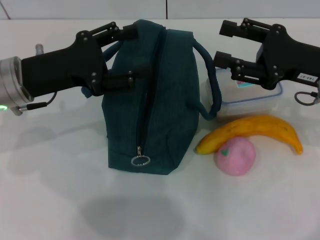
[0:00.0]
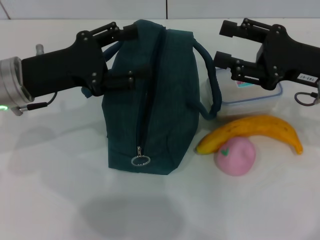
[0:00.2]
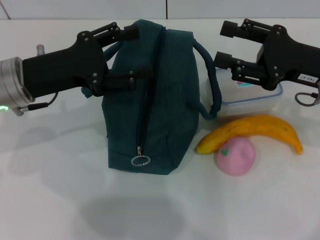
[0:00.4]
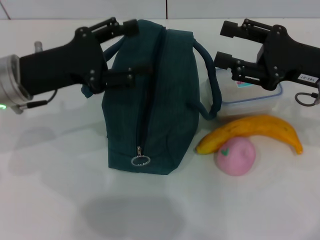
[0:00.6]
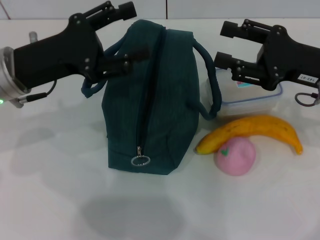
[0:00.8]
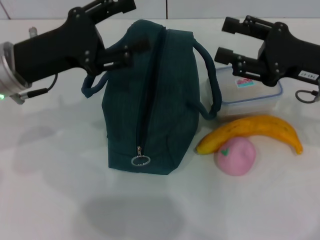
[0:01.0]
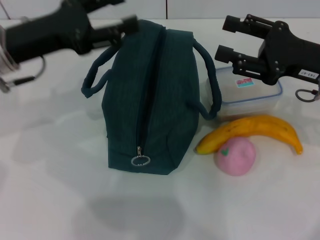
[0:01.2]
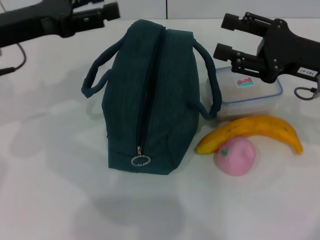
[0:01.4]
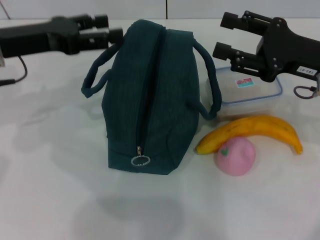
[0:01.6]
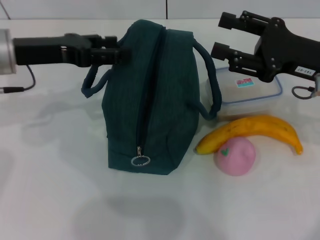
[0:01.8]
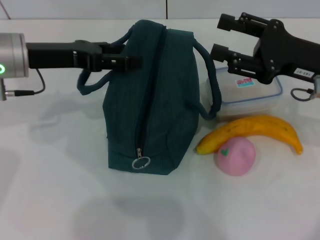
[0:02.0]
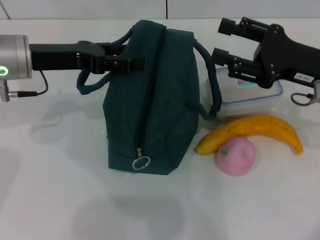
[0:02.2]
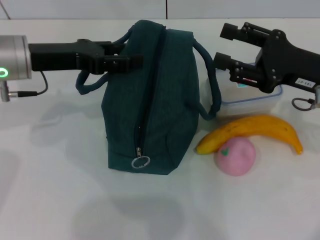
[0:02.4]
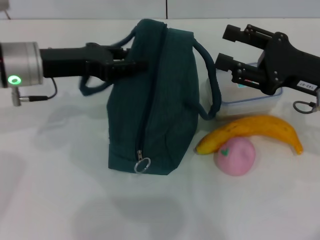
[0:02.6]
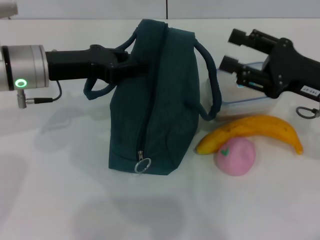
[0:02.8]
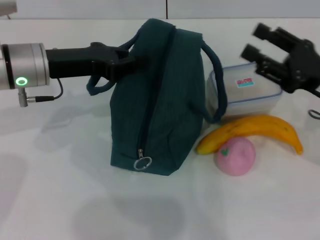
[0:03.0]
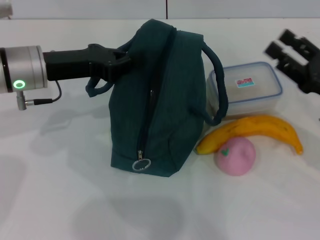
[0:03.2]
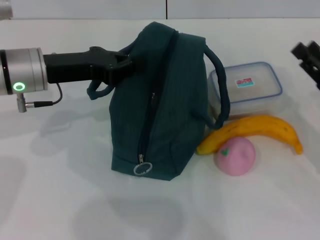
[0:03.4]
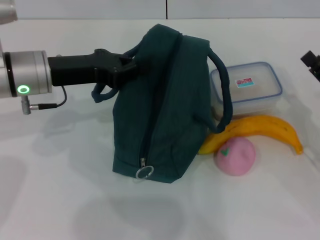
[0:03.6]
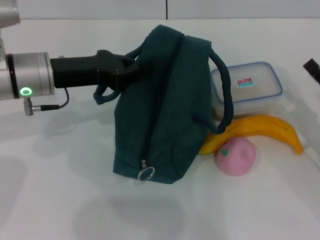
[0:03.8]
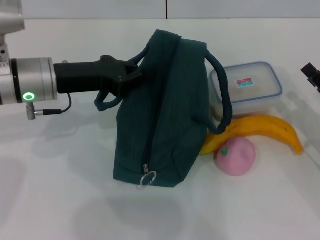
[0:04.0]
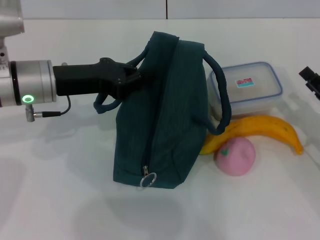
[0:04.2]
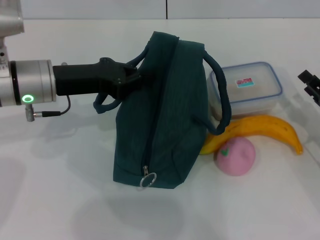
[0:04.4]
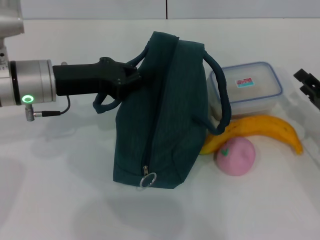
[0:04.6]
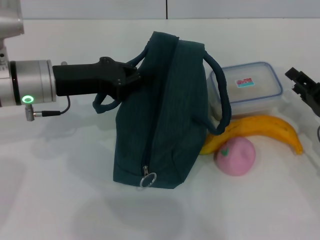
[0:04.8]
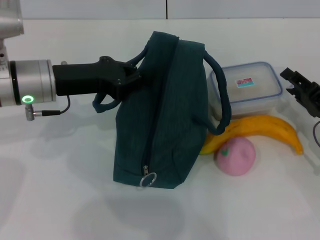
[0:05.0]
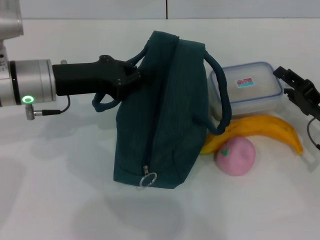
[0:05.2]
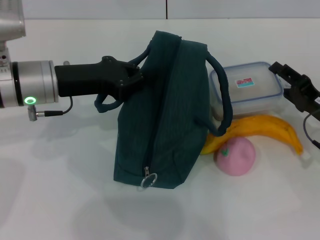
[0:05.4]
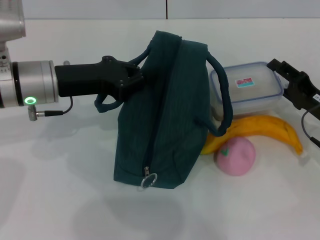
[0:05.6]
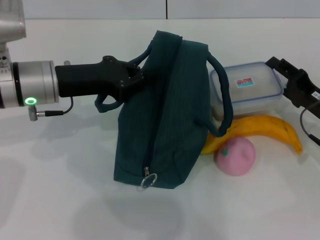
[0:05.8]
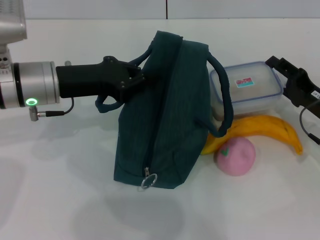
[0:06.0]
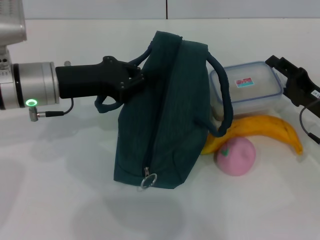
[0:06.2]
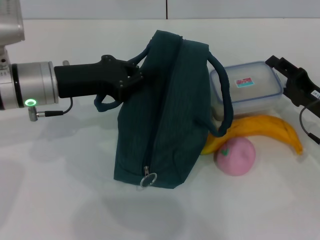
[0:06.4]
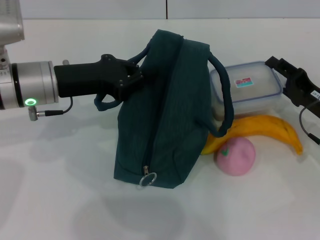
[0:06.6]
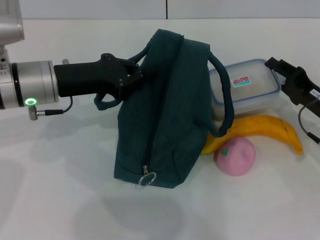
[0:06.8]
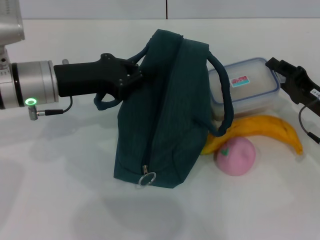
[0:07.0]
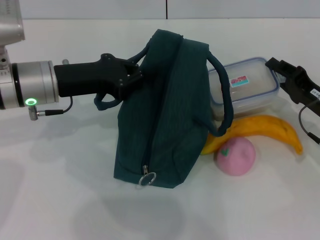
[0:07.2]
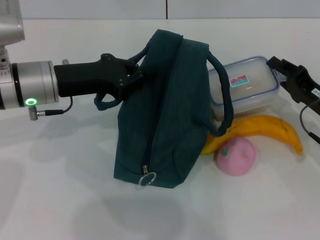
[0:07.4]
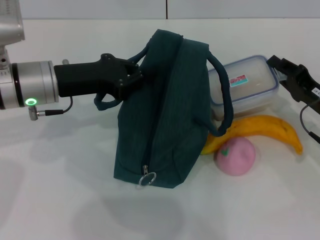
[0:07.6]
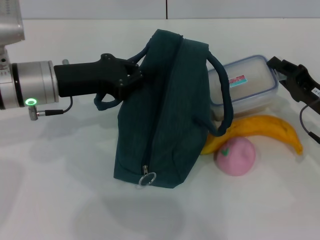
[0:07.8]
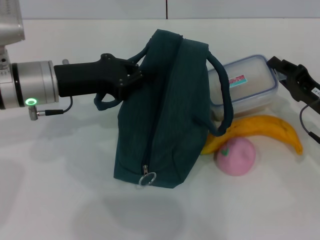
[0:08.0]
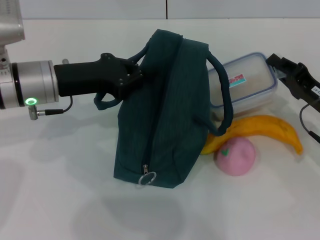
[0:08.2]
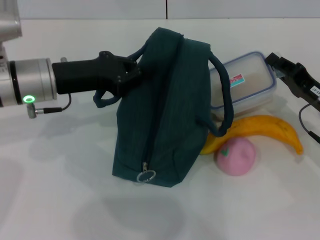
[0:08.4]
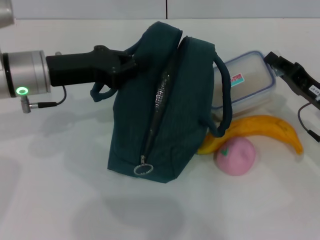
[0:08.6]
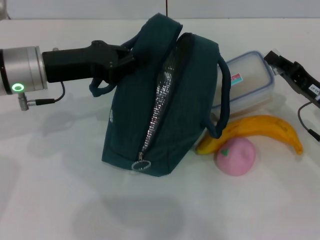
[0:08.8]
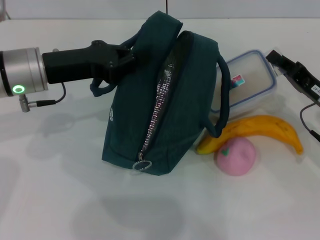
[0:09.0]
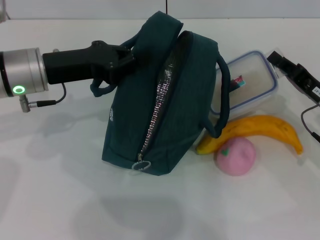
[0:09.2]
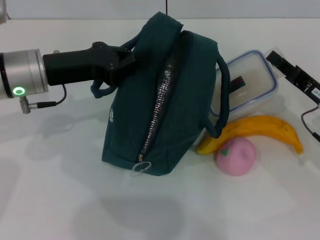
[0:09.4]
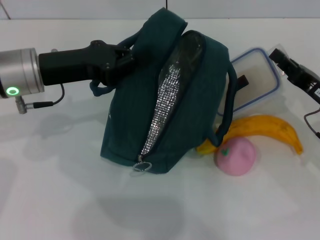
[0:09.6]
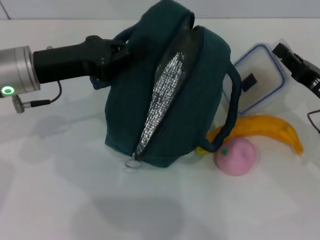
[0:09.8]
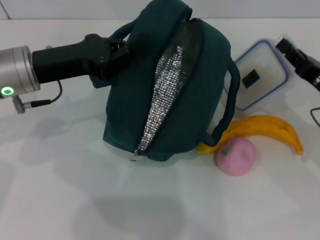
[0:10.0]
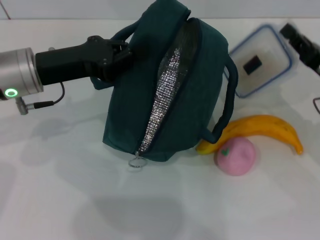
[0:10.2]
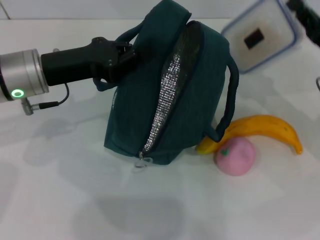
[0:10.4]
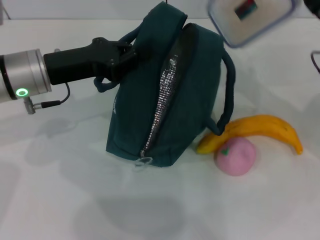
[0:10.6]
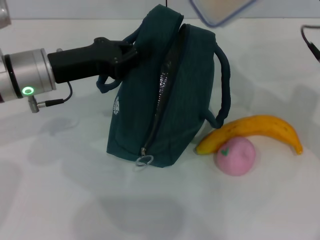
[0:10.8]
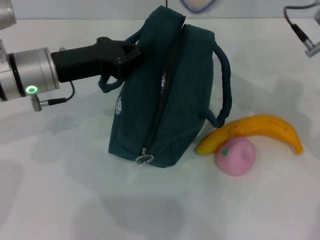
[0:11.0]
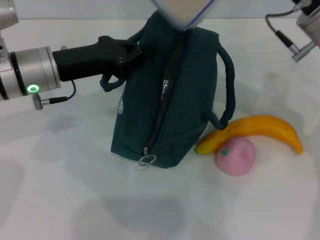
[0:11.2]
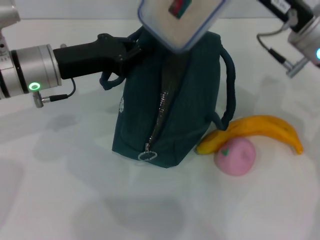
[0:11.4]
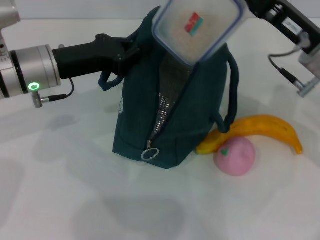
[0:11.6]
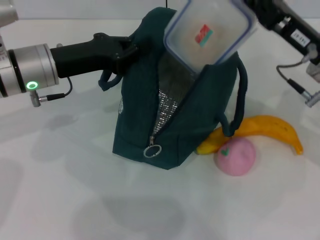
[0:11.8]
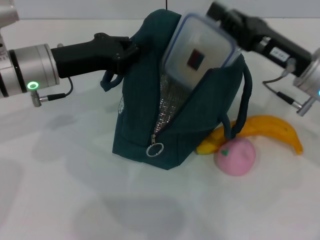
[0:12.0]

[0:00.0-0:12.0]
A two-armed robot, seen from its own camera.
Step, 0:00.0 to 0:03.4: Hold the lunch bag with your left hand.
Step, 0:03.6 to 0:07.4: Pick up the lunch box with your right hand.
0:00.0 to 0:01.6: The left gripper moves about 5 cm.
0:01.6 to 0:03.0: The left gripper moves roughly 5 cm, and closes up; the right gripper changes place by about 5 cm.
0:03.0 to 0:04.4: The right gripper goes roughly 10 cm downward. The left gripper closes its fingers.
0:04.4 to 0:06.0: The right gripper moves approximately 5 cm.
0:06.0 to 0:07.6: The right gripper closes its fingers.
0:07.6 to 0:09.0: The grippers make only small movements.
0:09.0 to 0:10.4: The right gripper heads upward, covering about 5 cm.
0:10.4 to 0:12.0: The right gripper moves to the left, approximately 5 cm.

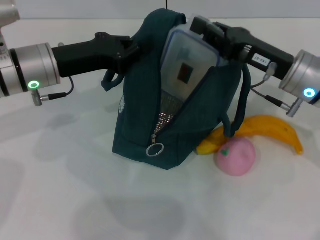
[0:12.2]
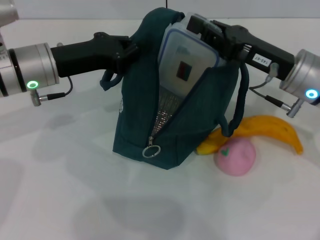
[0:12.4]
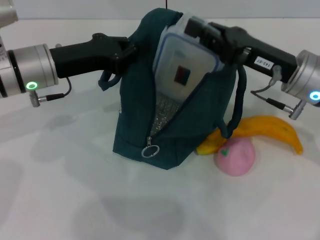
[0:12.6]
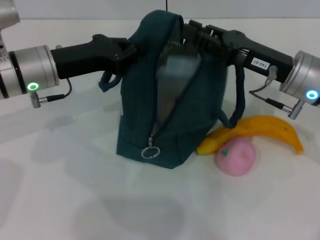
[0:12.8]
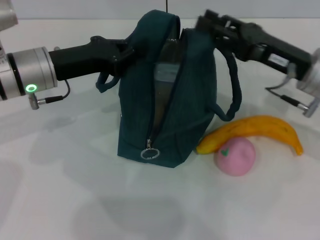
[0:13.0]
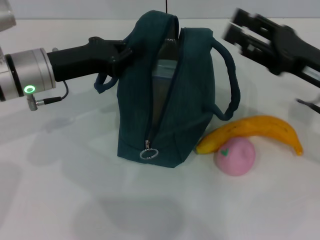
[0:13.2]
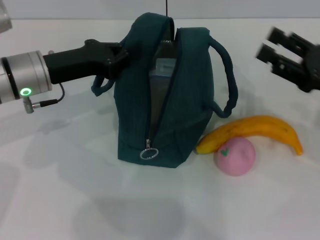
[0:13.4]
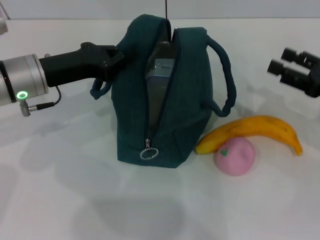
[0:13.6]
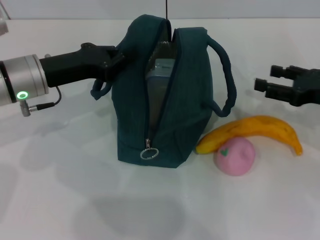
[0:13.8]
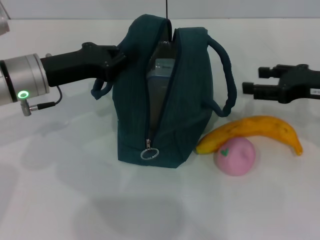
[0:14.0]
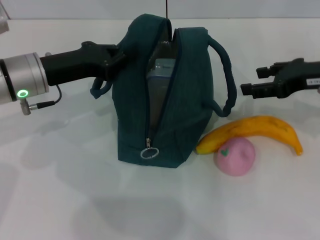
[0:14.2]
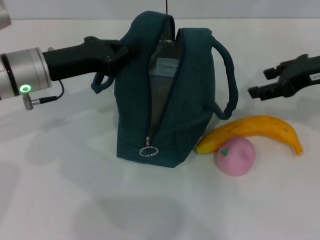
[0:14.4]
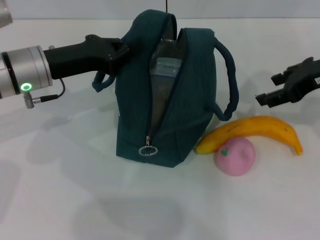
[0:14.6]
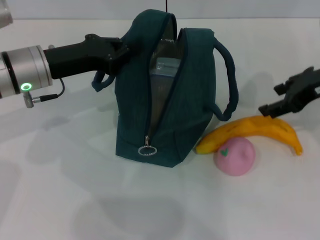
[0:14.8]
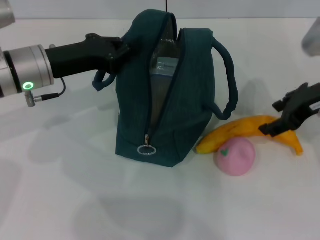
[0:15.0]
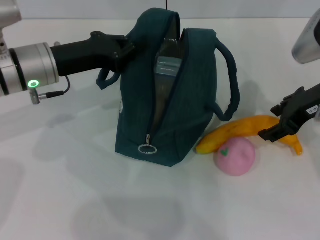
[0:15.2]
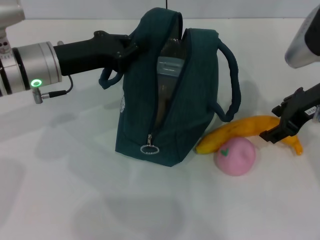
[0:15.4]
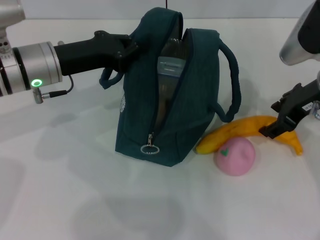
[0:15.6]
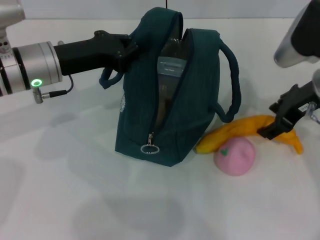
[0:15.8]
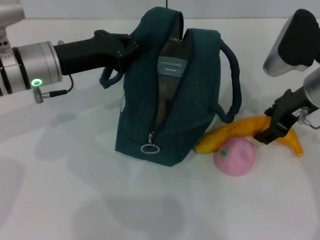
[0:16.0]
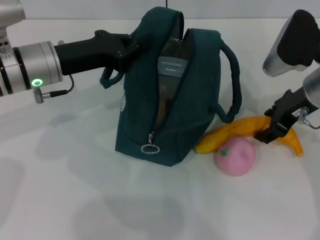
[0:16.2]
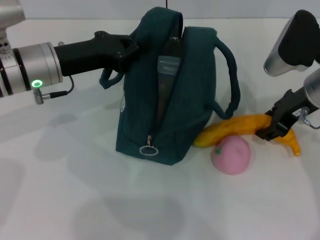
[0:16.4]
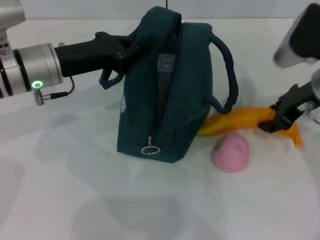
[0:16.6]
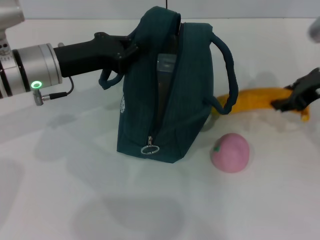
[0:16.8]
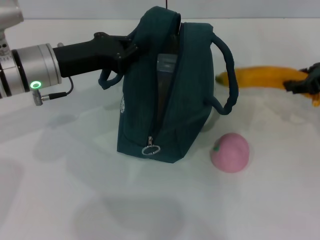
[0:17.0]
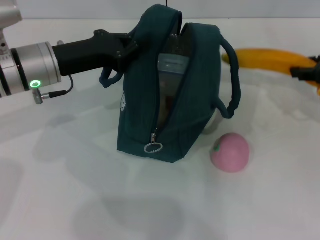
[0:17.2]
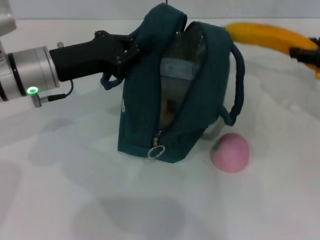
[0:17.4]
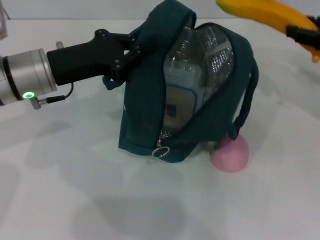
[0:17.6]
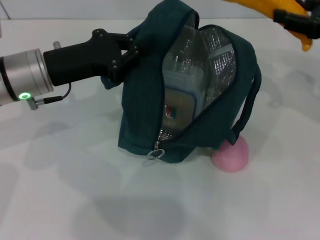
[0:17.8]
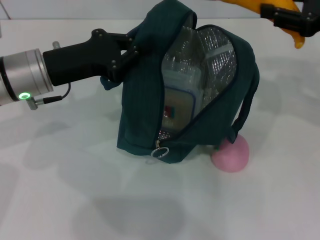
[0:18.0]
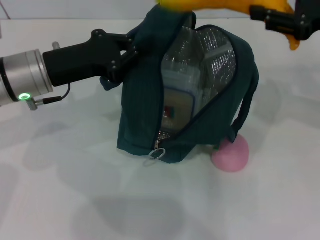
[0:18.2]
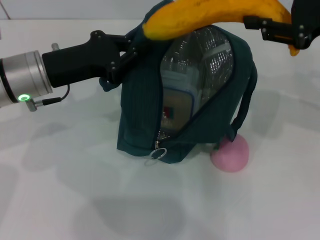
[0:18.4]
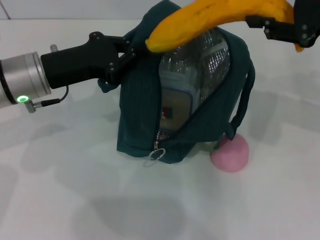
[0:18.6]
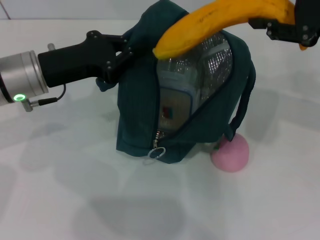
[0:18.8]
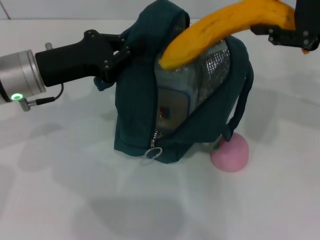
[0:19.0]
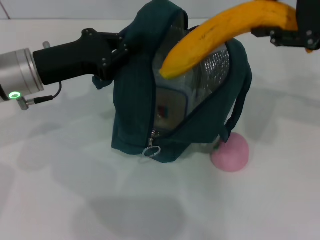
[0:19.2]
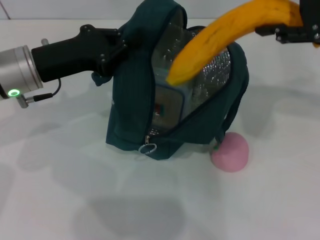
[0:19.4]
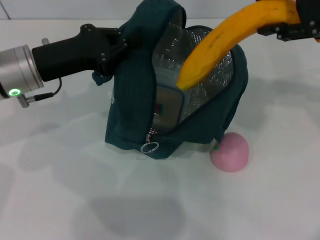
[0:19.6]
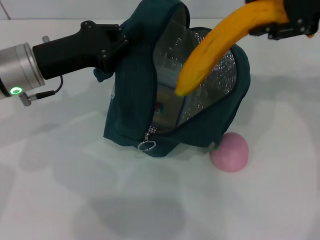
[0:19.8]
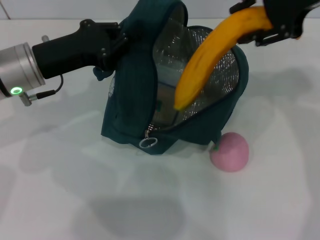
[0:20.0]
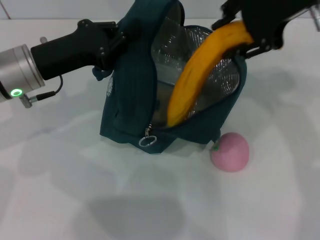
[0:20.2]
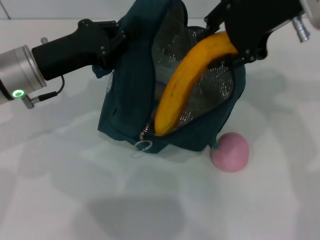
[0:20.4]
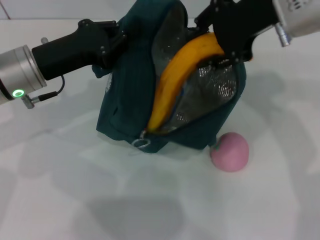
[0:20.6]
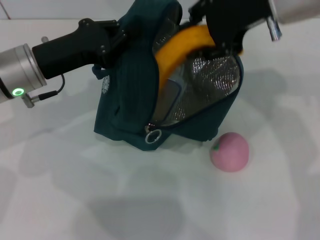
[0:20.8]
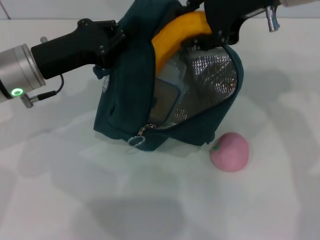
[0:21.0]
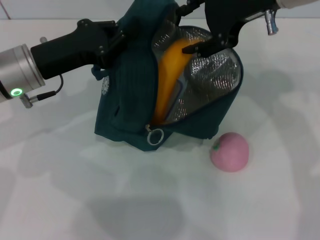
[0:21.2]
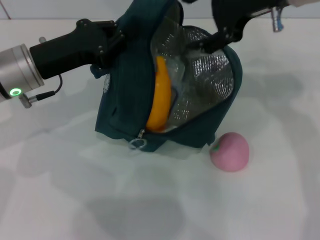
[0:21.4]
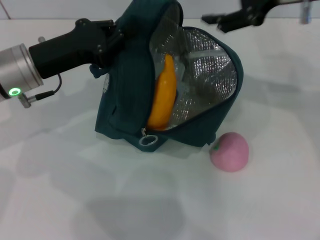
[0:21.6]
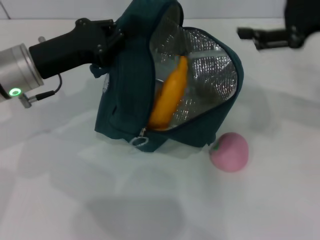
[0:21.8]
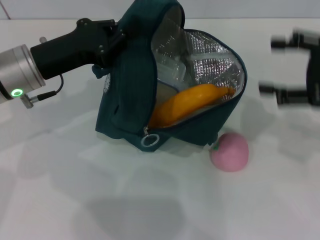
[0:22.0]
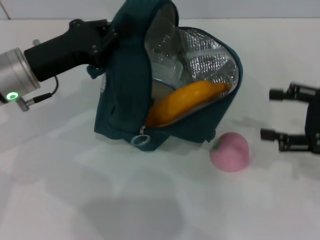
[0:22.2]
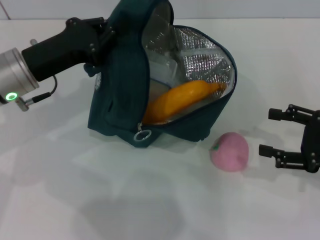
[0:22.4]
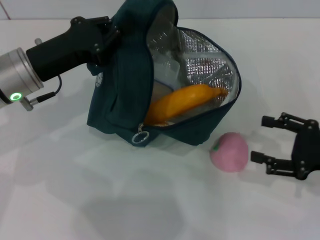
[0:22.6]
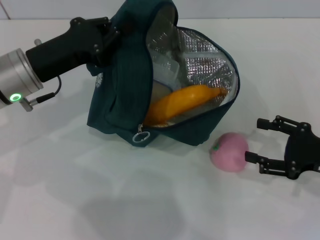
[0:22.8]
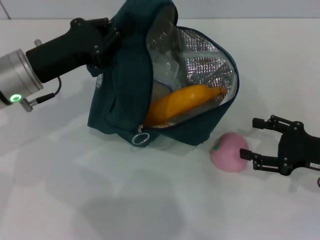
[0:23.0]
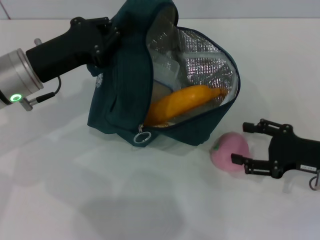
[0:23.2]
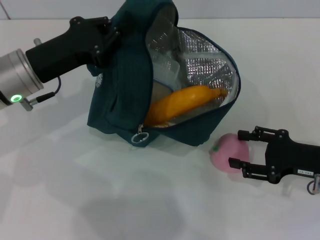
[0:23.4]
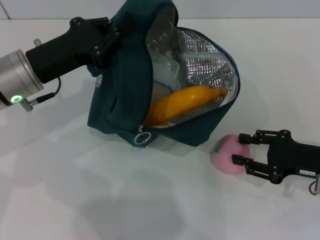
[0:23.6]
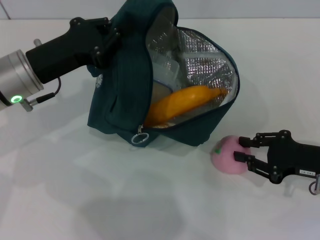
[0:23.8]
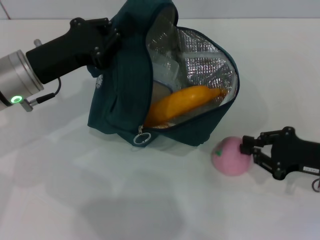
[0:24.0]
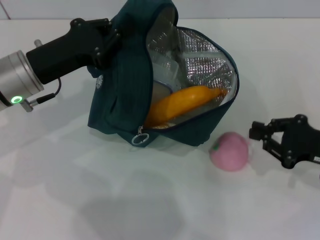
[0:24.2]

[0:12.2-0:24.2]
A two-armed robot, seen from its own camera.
Step, 0:13.0 to 0:16.2: Take the banana with your right hand.
Step, 0:16.4 to 0:21.2: Put the banana into the lunch bag with your right hand.
0:12.2 to 0:13.8: The right gripper travels to the right by some 10 cm, and opens its fingers.
0:13.8 to 0:15.2: The right gripper goes some 10 cm to the left and upward.
0:15.2 to 0:16.6: The grippers stay close to where they were, moving slightly.
0:16.6 to 0:18.2: The right gripper is displaced upward and to the right by roughly 10 cm.
0:18.2 to 0:19.8: The right gripper shifts roughly 10 cm upward and to the left.
0:19.8 to 0:21.2: The right gripper heads to the left, covering roughly 10 cm.
0:21.2 to 0:22.6: The right gripper moves downward, to the right and backward, some 30 cm, and opens its fingers.
0:22.6 to 0:24.2: The right gripper closes its fingers.
